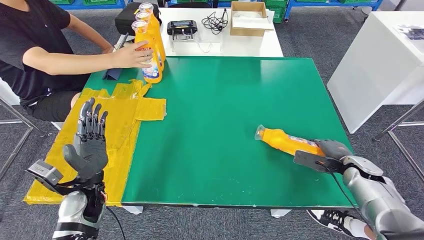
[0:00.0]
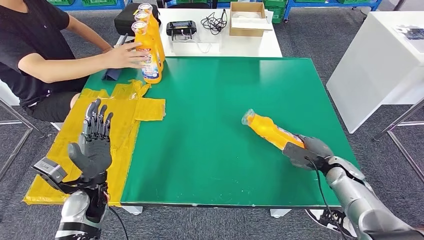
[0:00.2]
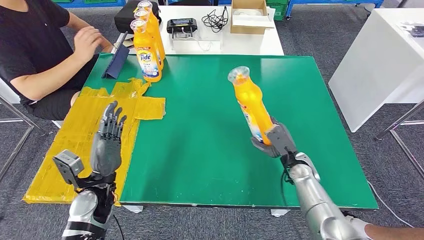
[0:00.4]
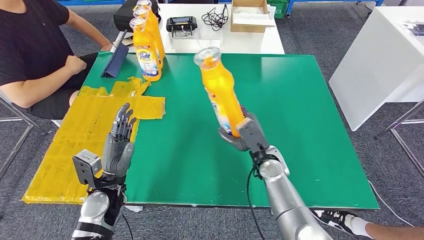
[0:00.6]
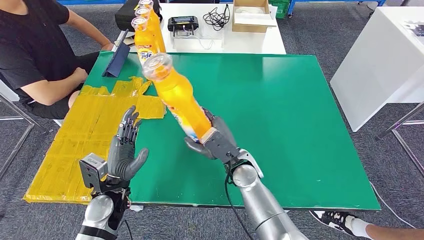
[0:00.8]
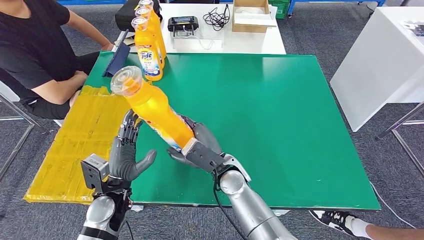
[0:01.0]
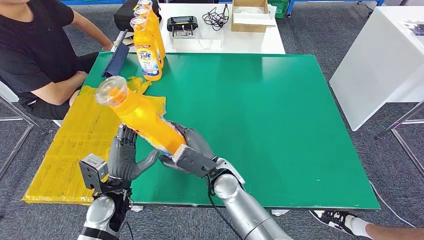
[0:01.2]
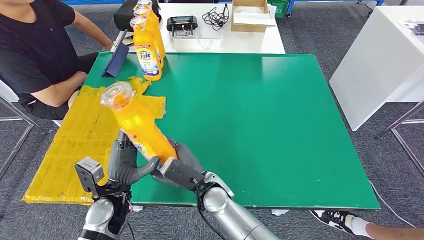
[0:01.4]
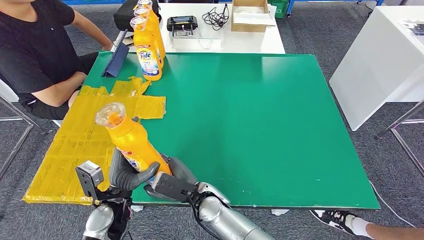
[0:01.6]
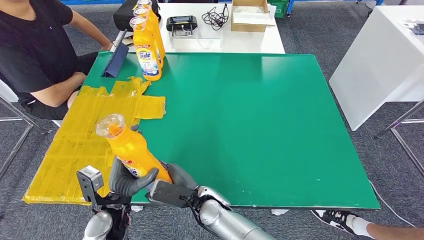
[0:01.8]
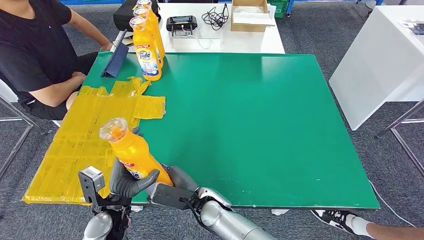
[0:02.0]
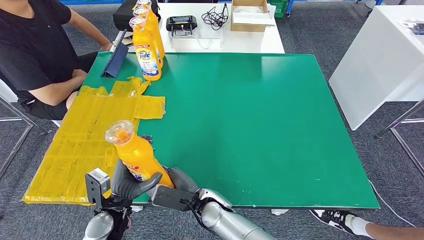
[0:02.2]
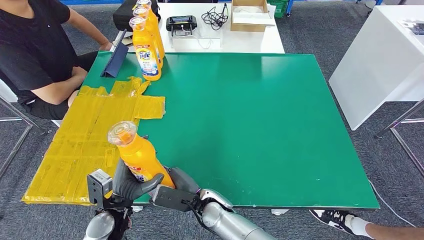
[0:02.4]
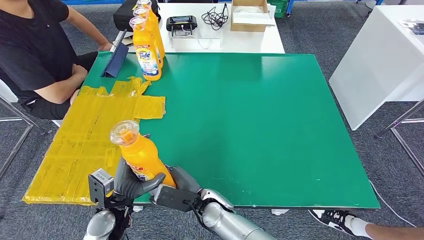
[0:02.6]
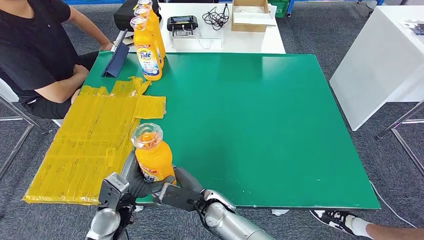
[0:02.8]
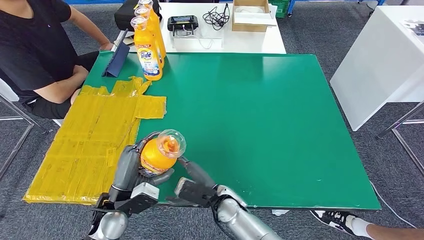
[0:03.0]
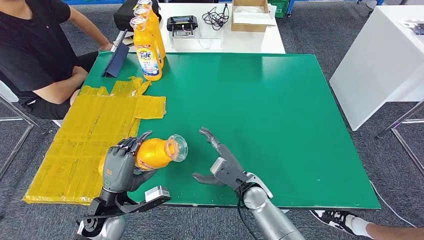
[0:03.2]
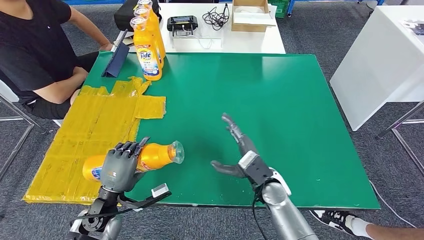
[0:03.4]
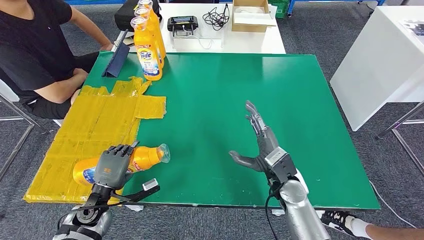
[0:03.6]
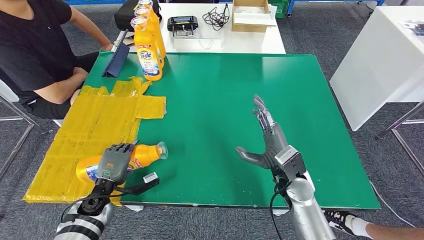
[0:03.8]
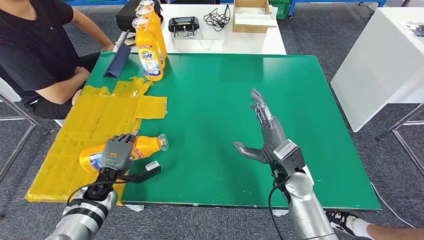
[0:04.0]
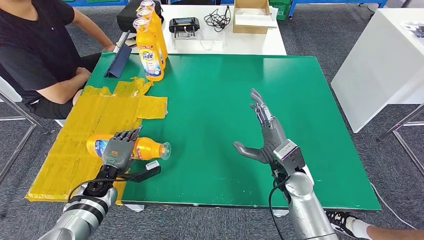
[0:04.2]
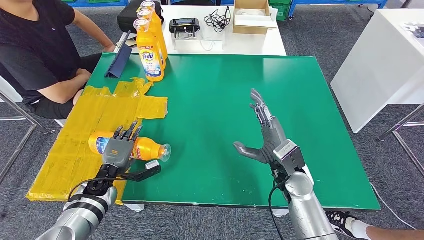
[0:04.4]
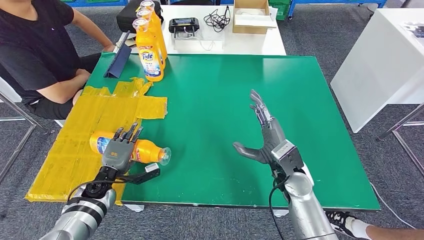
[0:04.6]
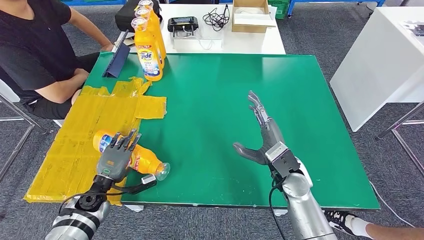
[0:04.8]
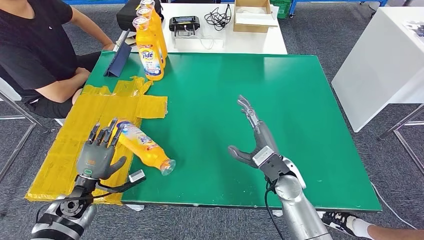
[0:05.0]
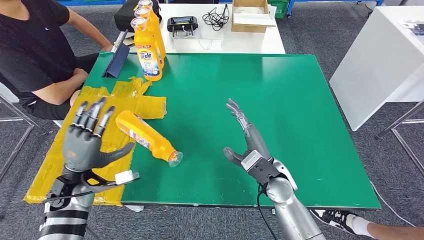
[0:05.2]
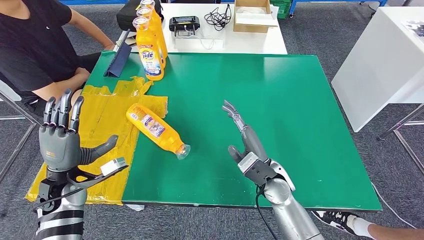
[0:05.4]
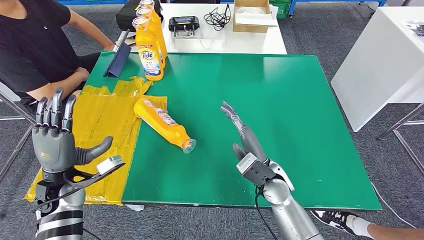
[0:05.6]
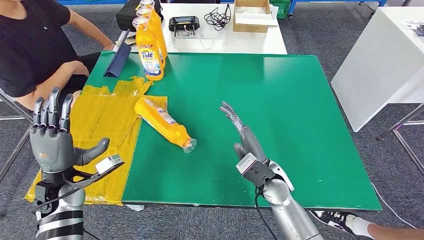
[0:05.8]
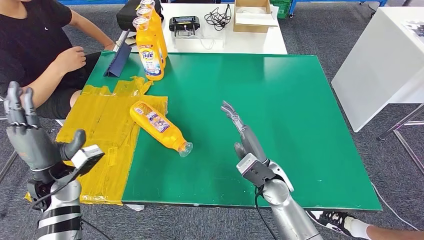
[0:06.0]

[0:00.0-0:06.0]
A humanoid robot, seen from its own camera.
Step, 0:00.8 to 0:06.0: Flip the fast-moving consumer goods bottle to the front side.
0:01.6 to 0:03.0: The right hand travels to the right by approximately 5 cm.
